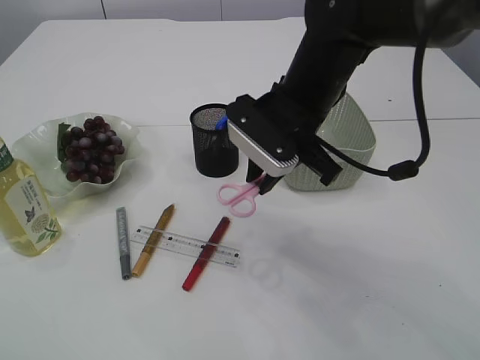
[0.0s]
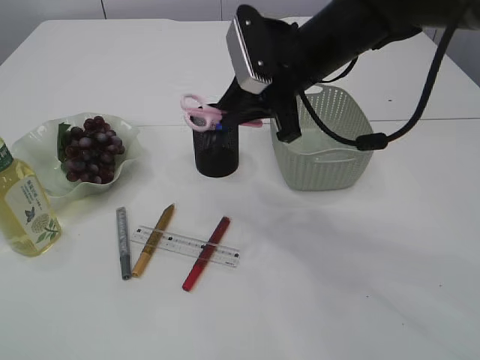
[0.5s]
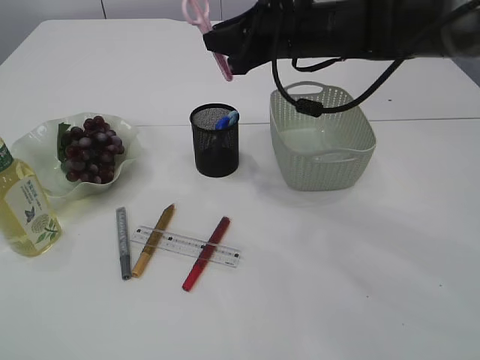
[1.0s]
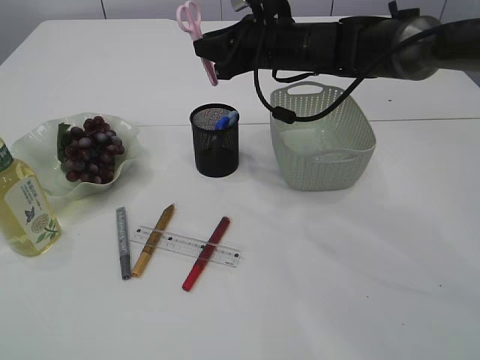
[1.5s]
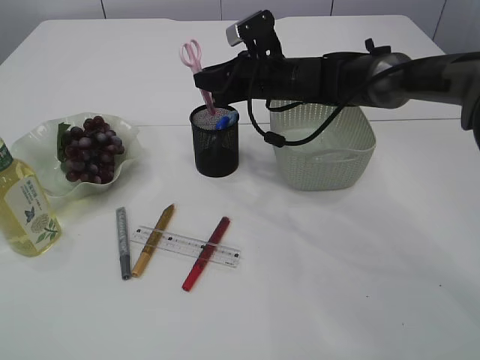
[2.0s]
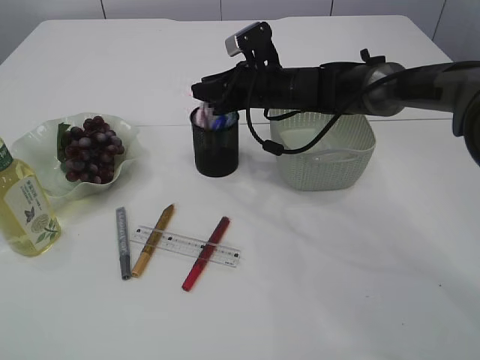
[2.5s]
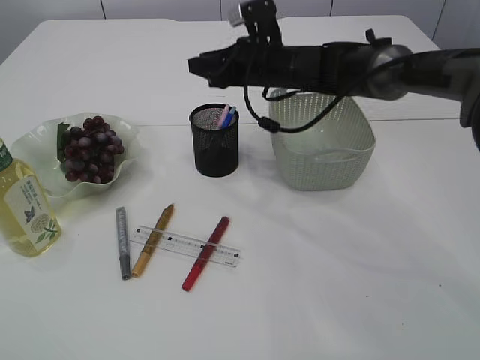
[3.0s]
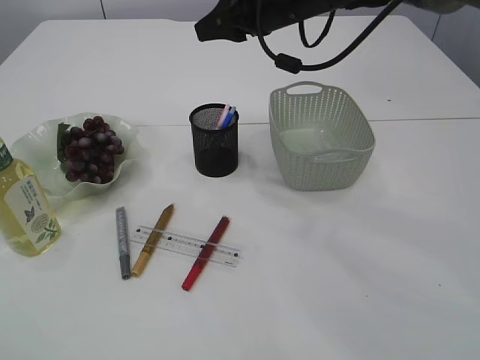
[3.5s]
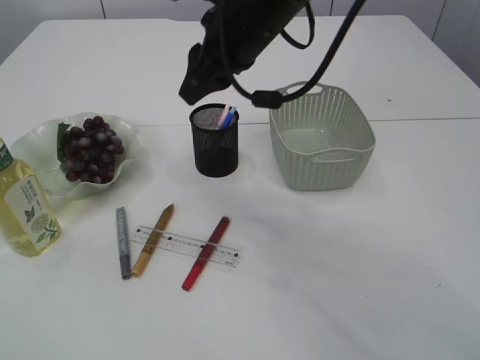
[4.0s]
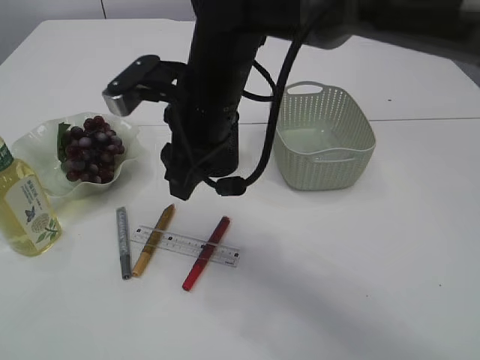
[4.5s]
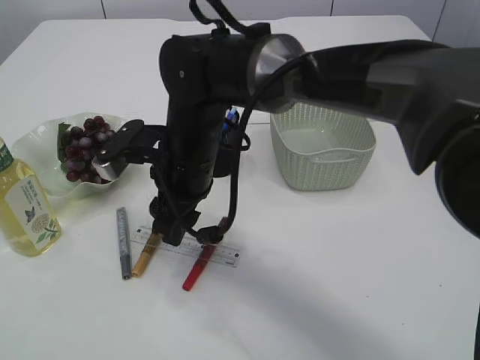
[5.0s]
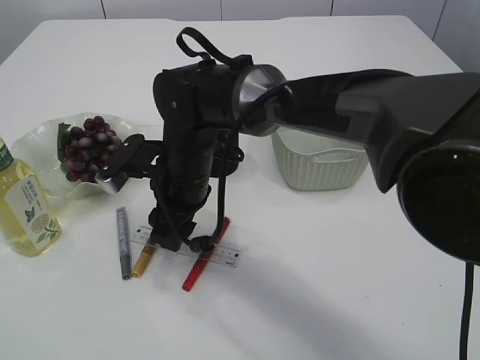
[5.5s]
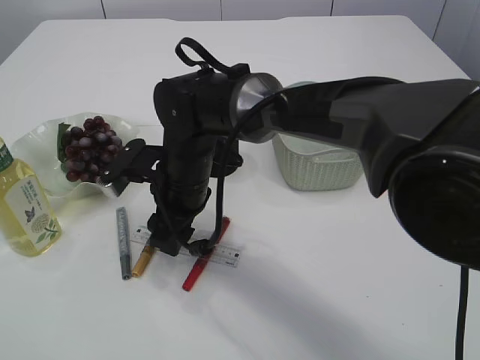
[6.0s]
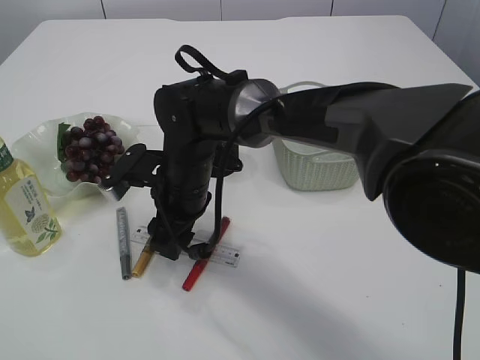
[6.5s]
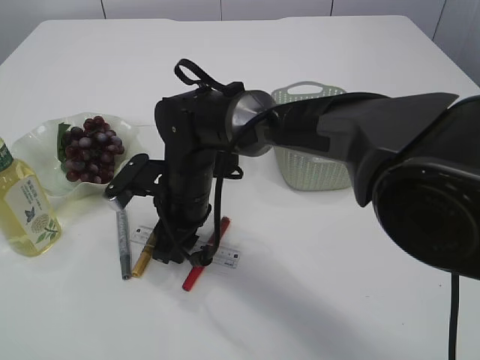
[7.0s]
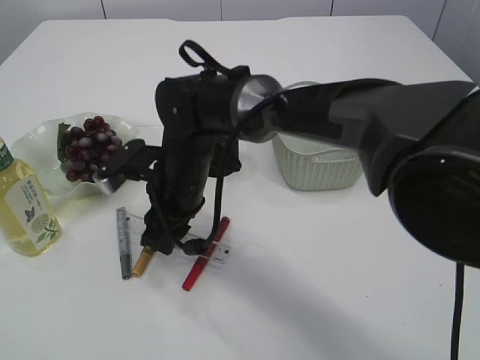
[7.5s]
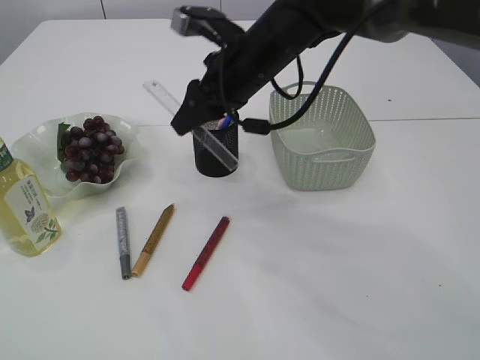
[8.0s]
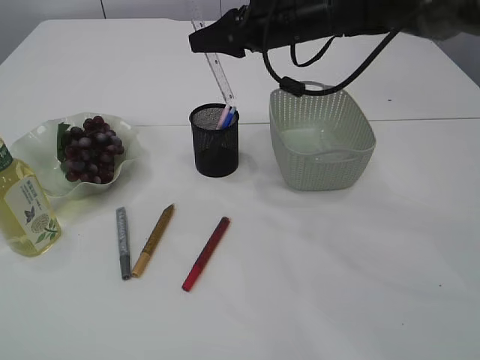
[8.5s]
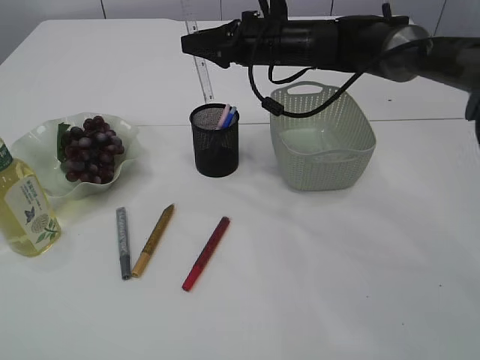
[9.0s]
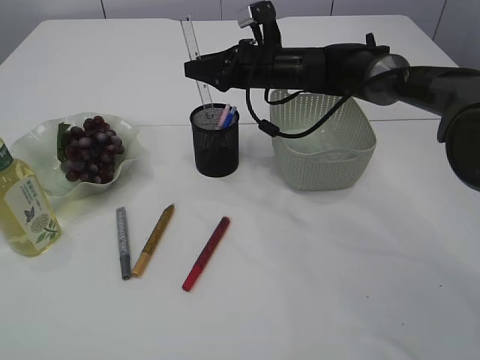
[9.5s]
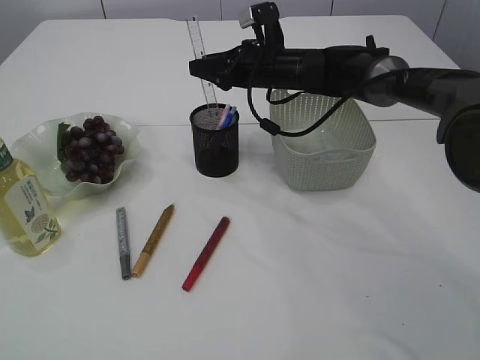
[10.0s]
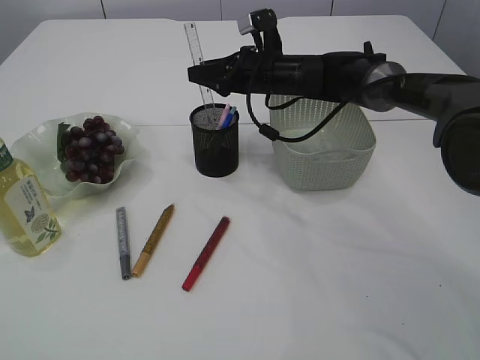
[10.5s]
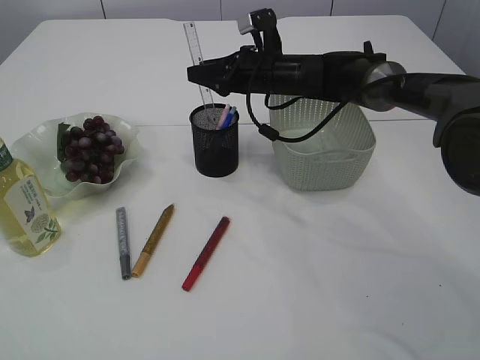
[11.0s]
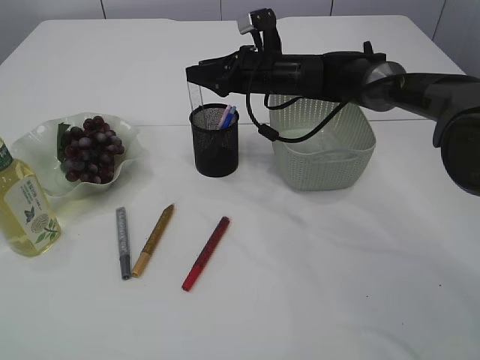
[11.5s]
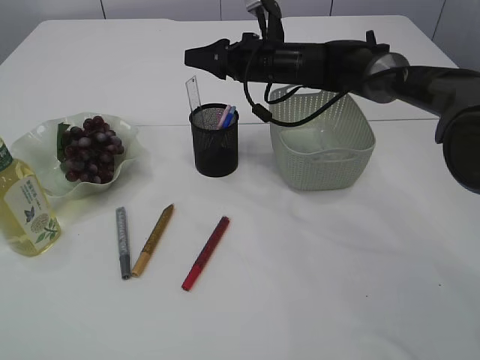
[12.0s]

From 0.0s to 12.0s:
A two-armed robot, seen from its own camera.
Step, from 0.0s to 2.5s: Place the pink scissors into the pen holder.
Step, from 3.0s to 7.5s: pick up the ruler.
Step, from 8.0s to 12.0s: Place the ruler into the pen holder.
From 0.0s to 2.0s: The right gripper heads forward, covering about 15 cm.
From 2.0s to 4.0s: The right gripper is displaced upward and backward by about 15 cm.
From 4.0s to 6.0s: The right gripper moves downward and to the left, about 20 cm, and opens up.
From 6.0s to 8.0s: The right gripper goes approximately 15 cm upward, to the right and forward.
From 8.0s to 10.0s: The right gripper is displaced forward, downward and to the right by roughly 15 cm.
From 10.0s to 12.0s: The grippers make only small movements.

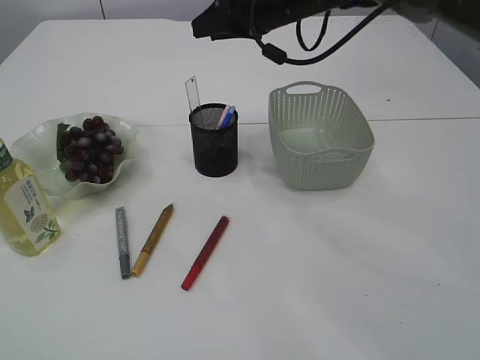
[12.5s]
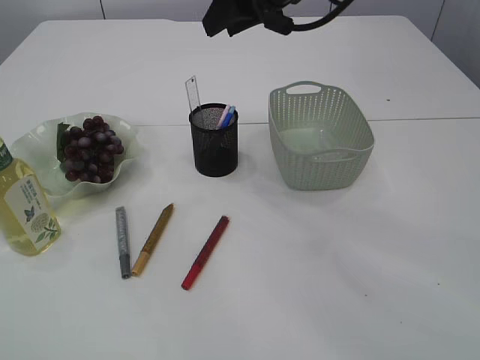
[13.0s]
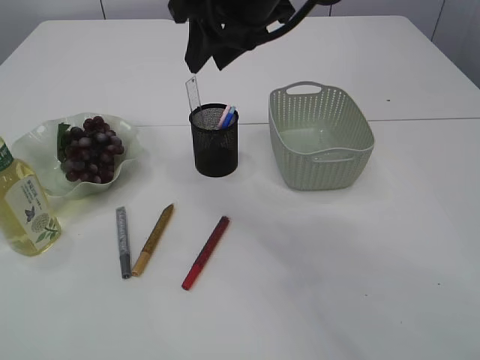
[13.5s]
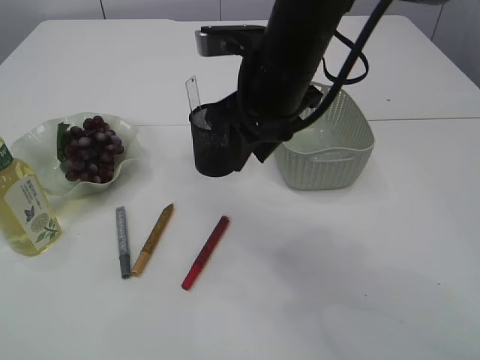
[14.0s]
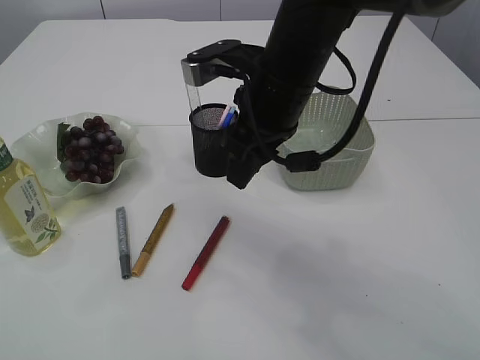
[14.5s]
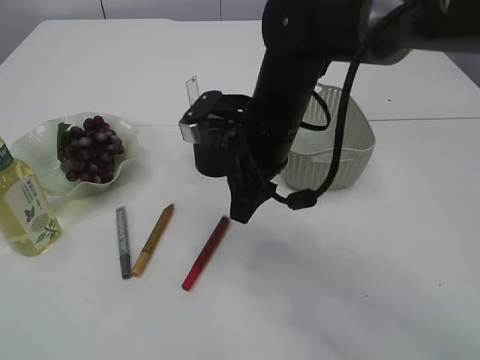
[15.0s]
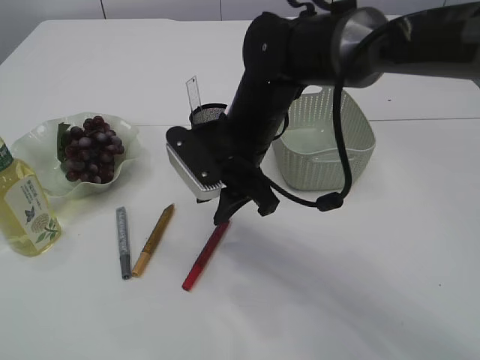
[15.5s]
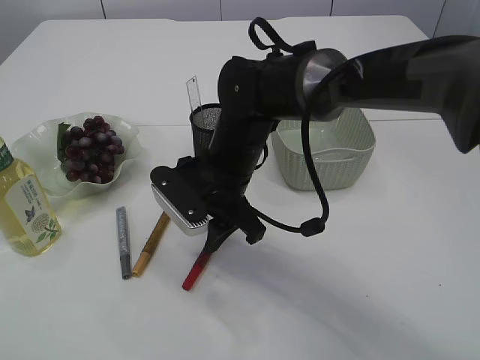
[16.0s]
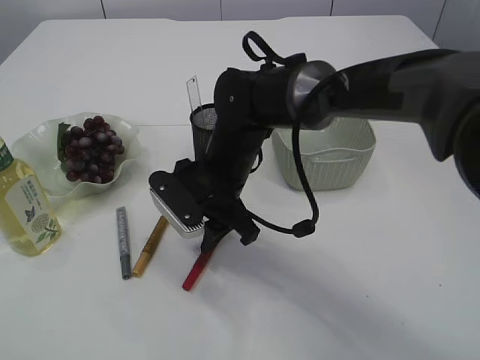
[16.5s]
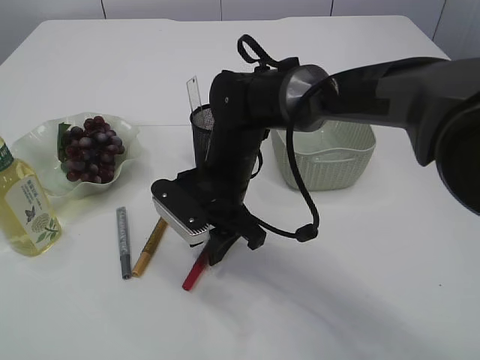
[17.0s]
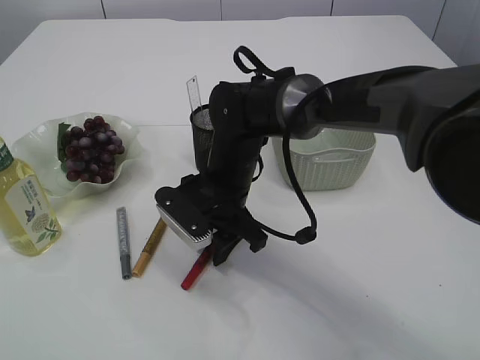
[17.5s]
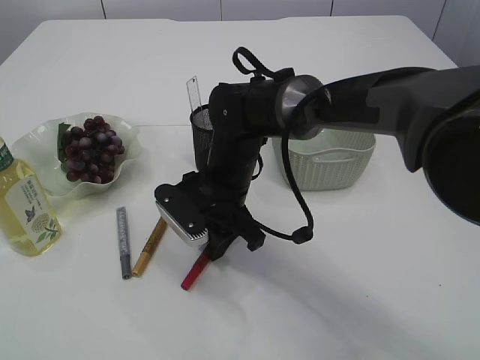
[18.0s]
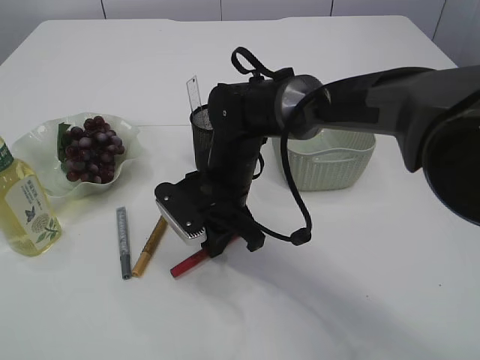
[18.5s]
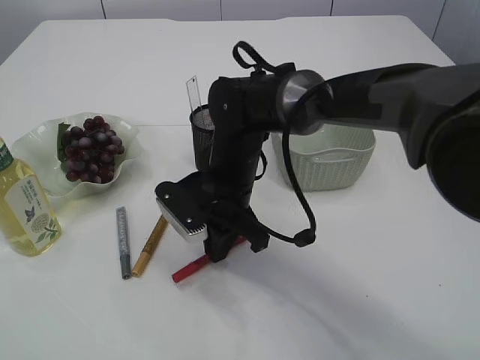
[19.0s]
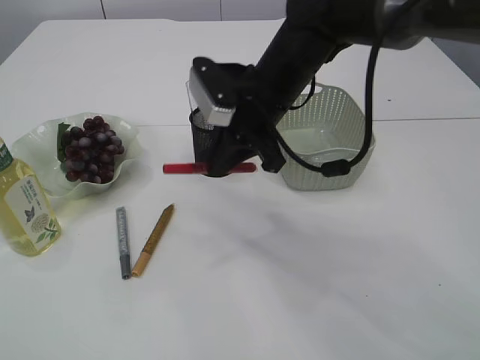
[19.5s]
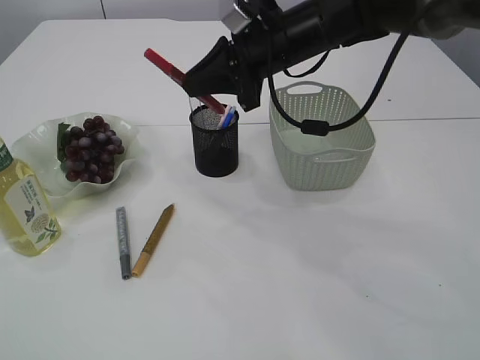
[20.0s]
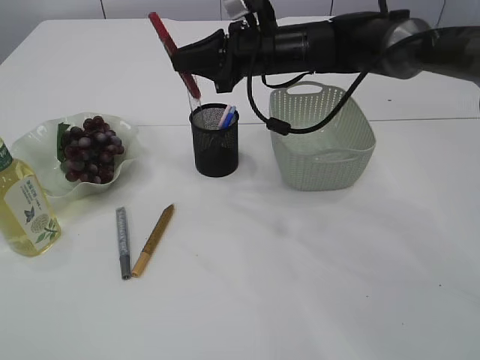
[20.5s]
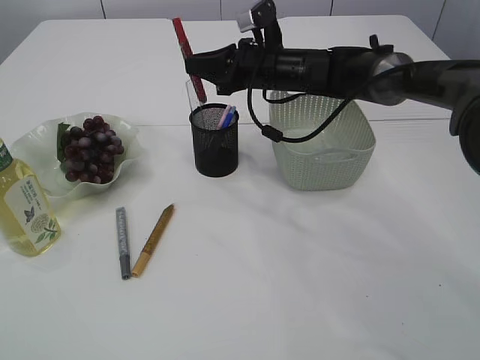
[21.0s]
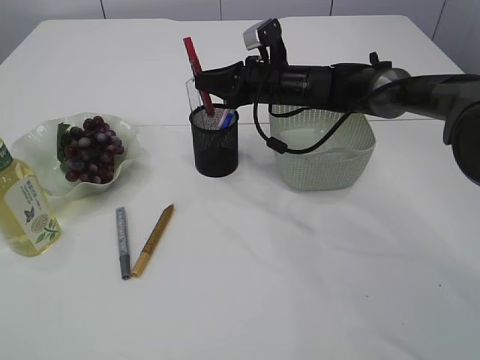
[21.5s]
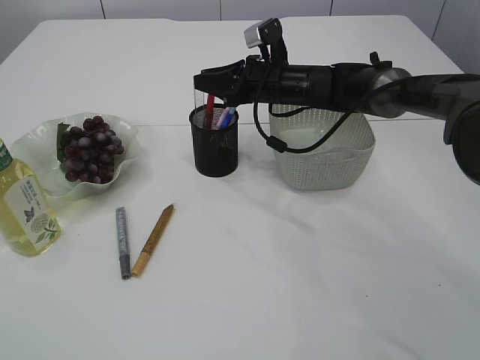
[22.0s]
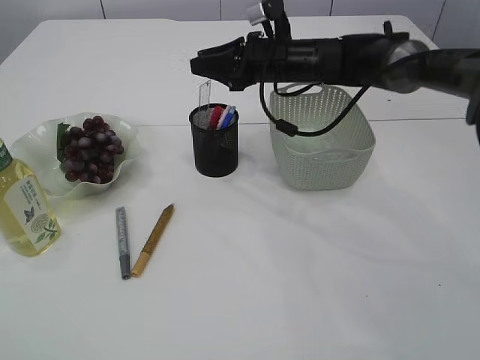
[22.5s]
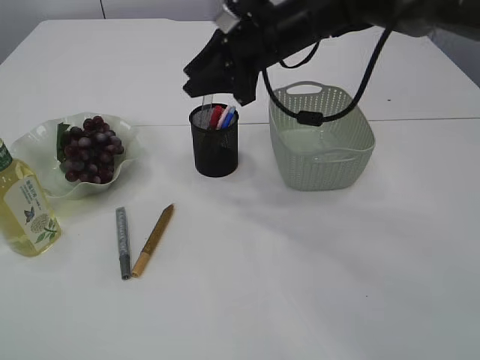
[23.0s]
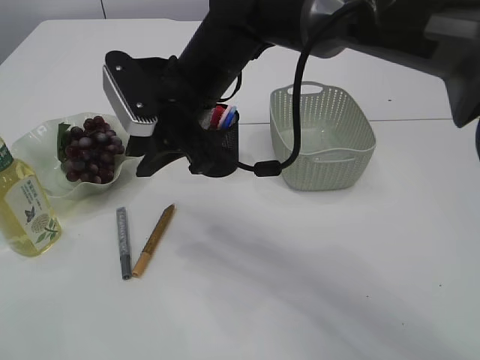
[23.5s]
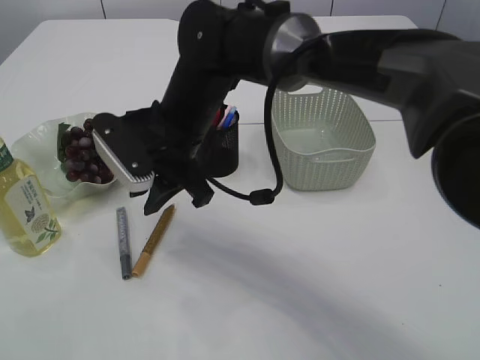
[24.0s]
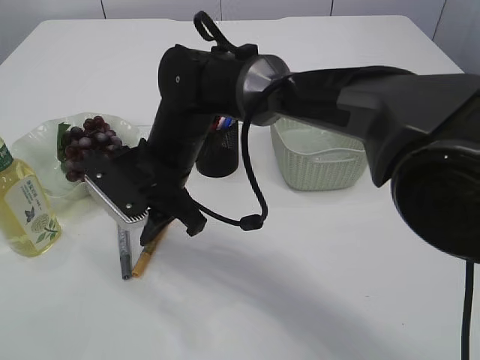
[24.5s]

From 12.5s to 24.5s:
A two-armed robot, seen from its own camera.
Step, from 12.5s to 19.5s: pick up the red glue.
Step, from 20.0s to 22.5s: place the red glue into the pen holder.
From 12.5s to 14.5s: The right gripper goes some 15 cm backward.
From 14.5s to 16.5s: The right gripper is displaced downward and to the left by roughly 15 cm.
From 16.5s to 18.5s: The right gripper closes.
From 18.5s to 20.5s: The right gripper heads upward, forward and to the right, covering approximately 15 cm.
From 22.5s to 24.5s: The right gripper shifts about 20 cm to the left and backward.

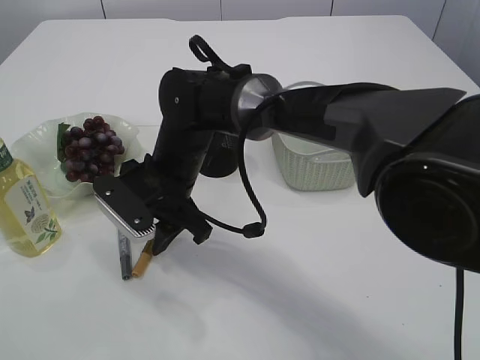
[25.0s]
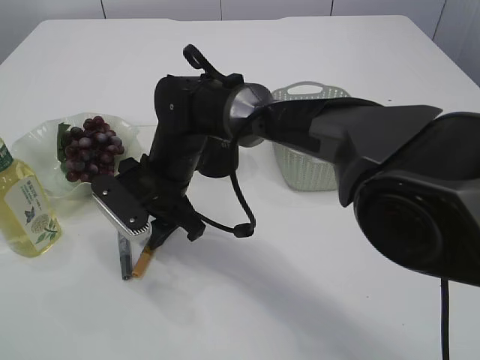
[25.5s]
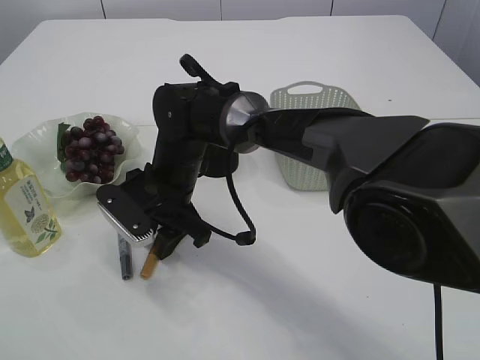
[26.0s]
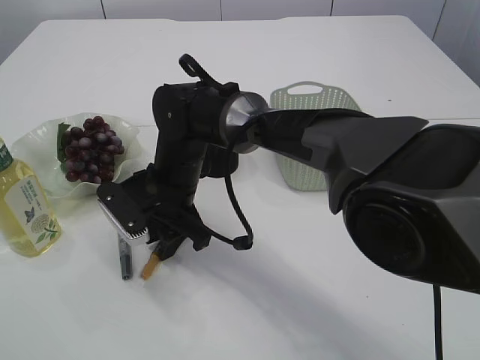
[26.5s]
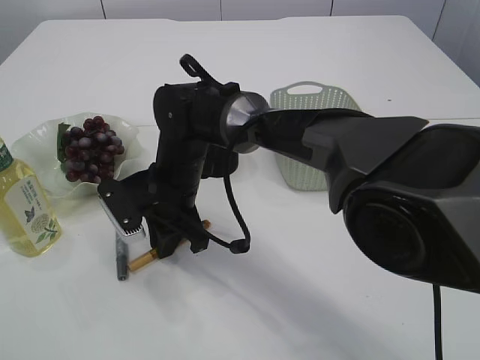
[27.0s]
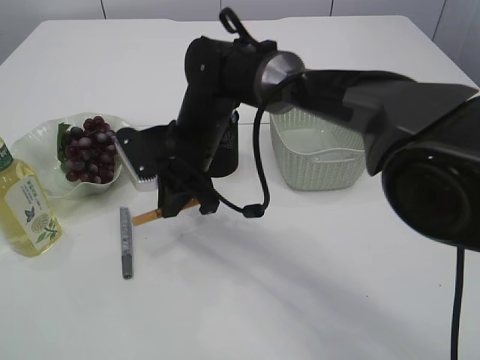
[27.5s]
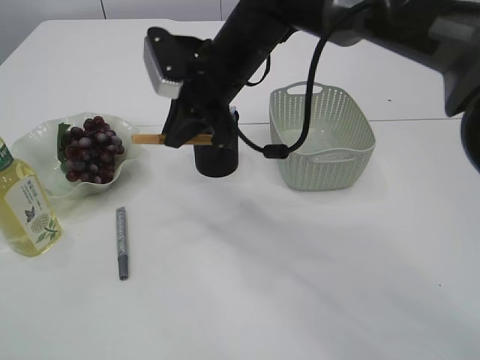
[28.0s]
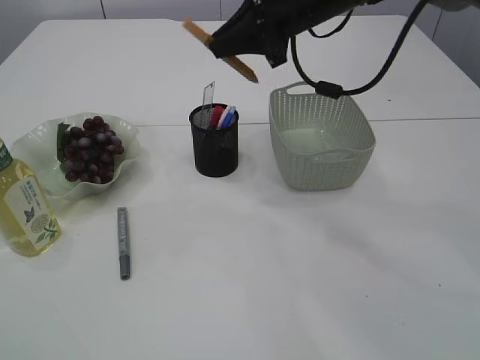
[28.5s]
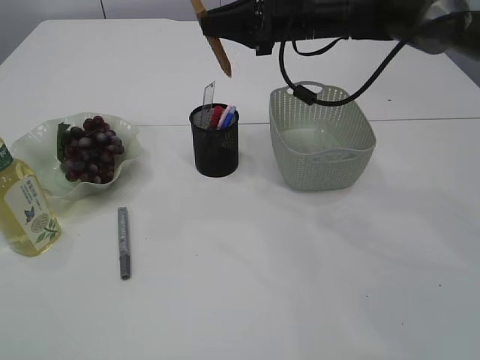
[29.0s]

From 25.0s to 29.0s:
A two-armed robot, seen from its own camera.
Step, from 25.0s to 28.0s: pick up the yellow glue.
From 25.0s to 27.0s: The right gripper closes its fingers.
From 27.0s to 29.0s: The right gripper heads to the right, upward and forward, covering roughly 25 cm.
